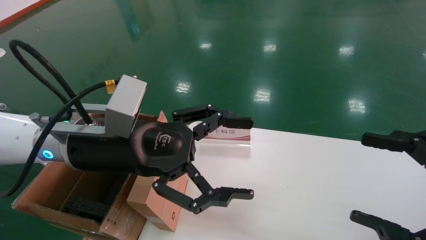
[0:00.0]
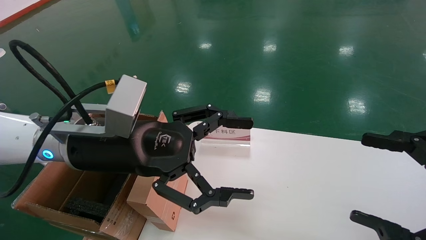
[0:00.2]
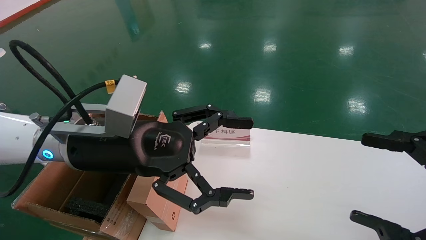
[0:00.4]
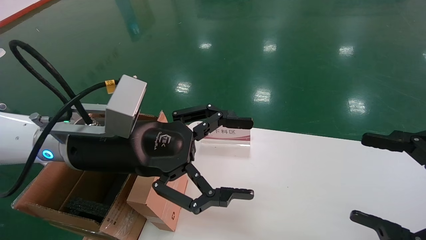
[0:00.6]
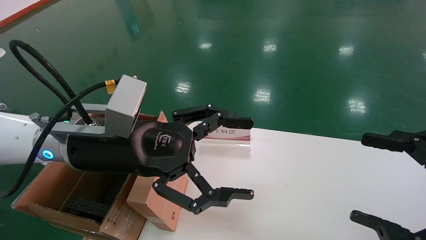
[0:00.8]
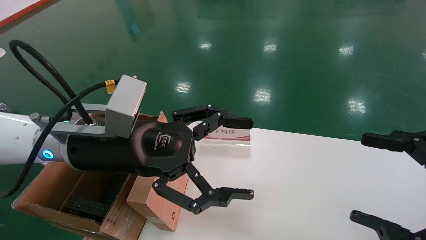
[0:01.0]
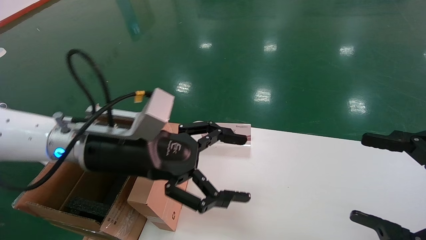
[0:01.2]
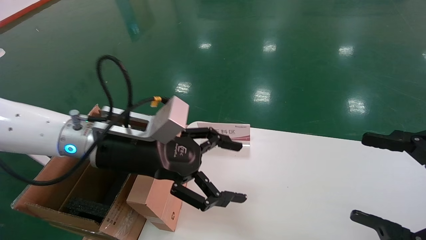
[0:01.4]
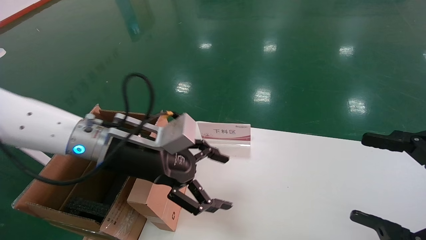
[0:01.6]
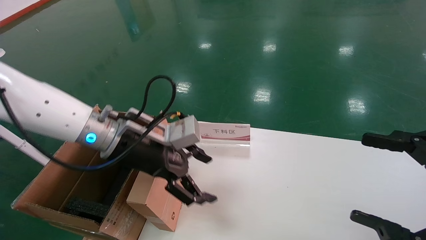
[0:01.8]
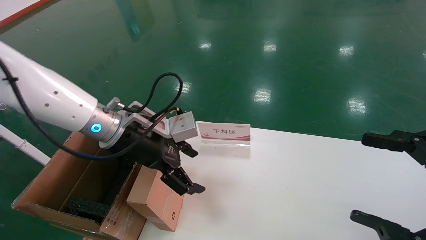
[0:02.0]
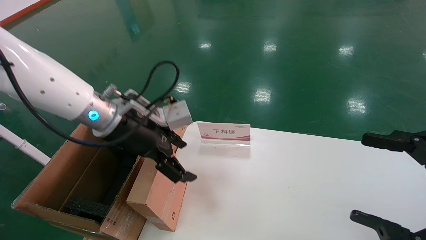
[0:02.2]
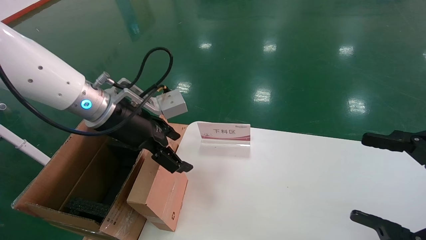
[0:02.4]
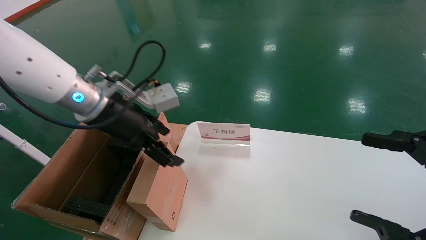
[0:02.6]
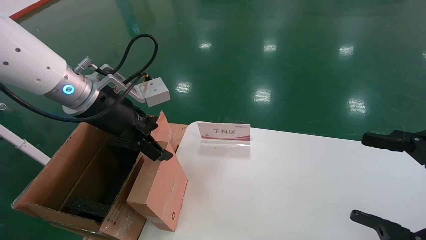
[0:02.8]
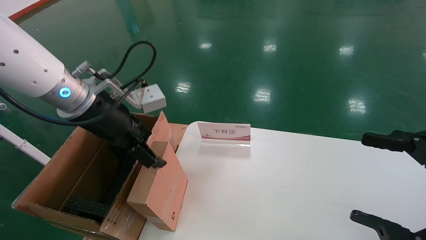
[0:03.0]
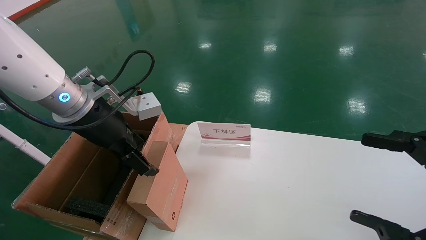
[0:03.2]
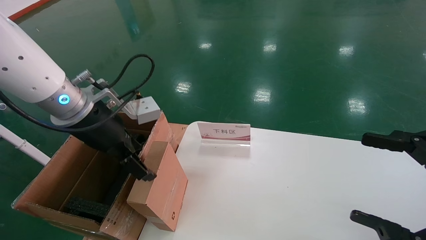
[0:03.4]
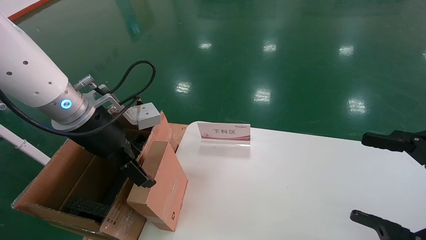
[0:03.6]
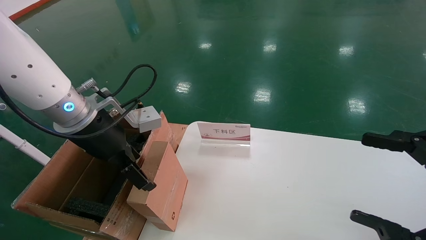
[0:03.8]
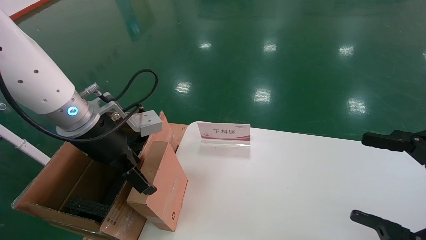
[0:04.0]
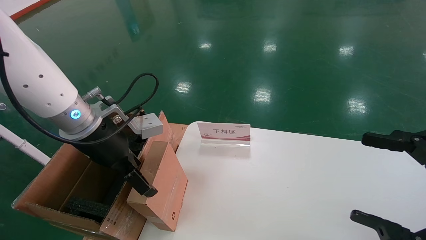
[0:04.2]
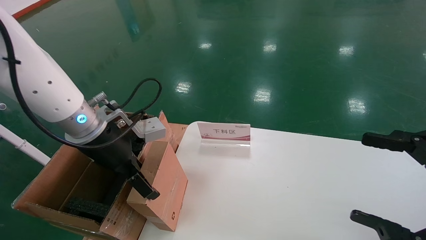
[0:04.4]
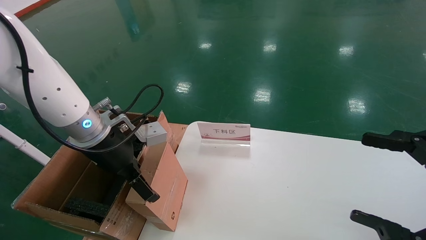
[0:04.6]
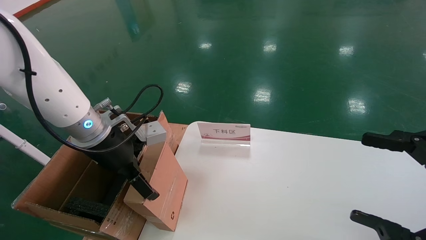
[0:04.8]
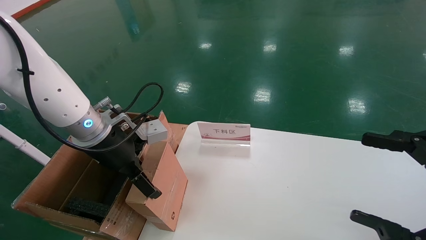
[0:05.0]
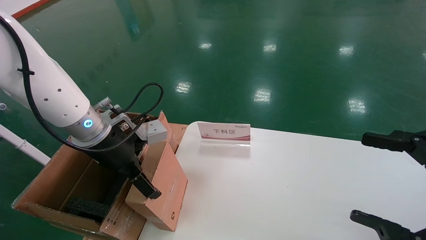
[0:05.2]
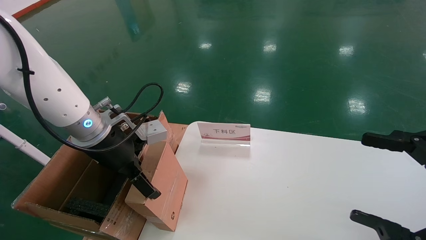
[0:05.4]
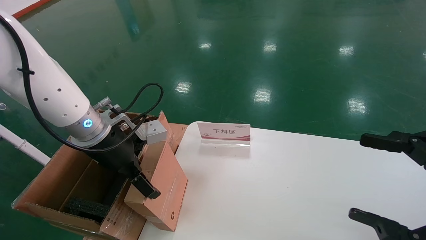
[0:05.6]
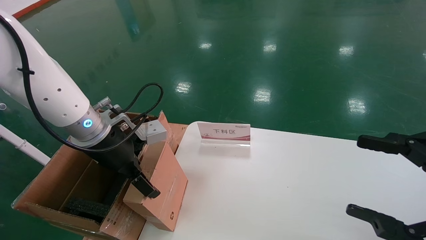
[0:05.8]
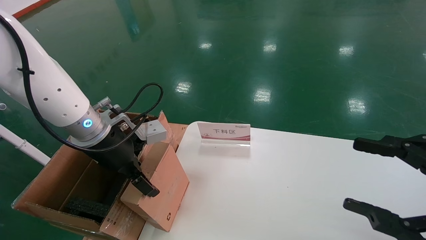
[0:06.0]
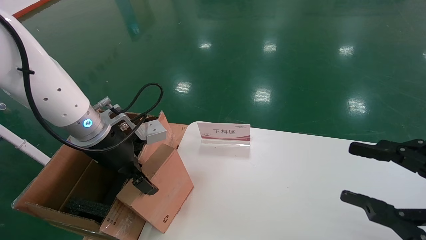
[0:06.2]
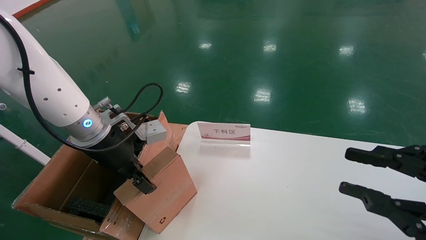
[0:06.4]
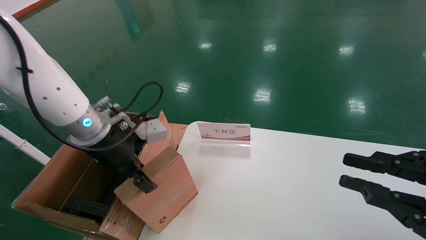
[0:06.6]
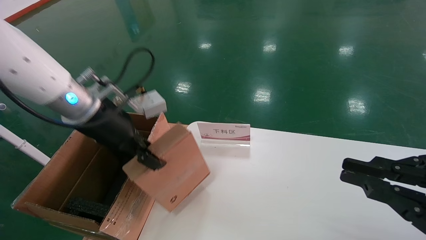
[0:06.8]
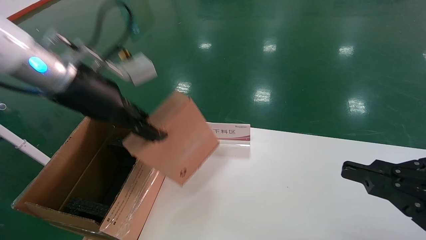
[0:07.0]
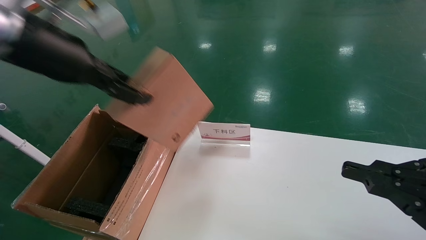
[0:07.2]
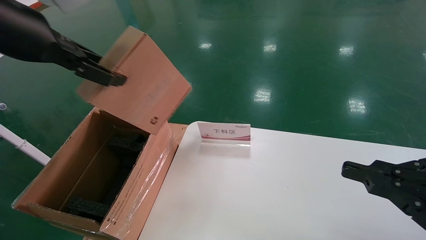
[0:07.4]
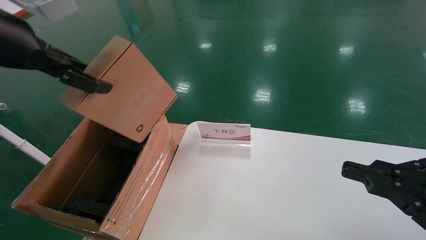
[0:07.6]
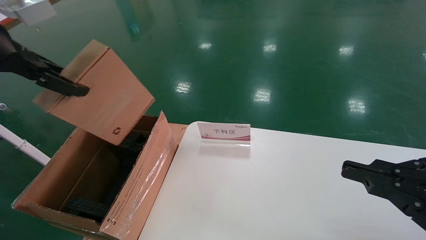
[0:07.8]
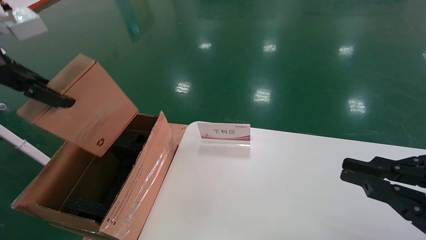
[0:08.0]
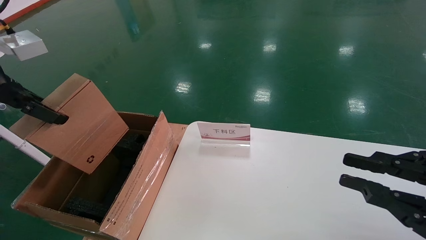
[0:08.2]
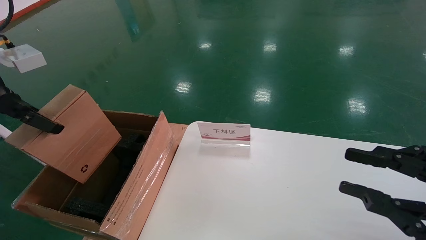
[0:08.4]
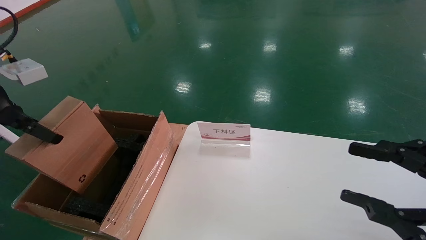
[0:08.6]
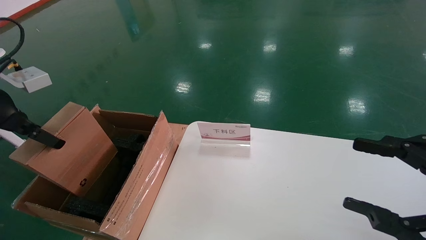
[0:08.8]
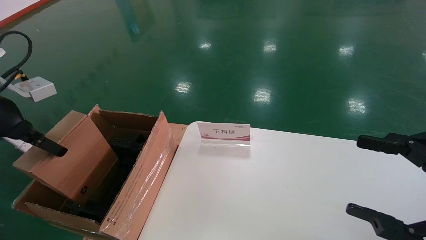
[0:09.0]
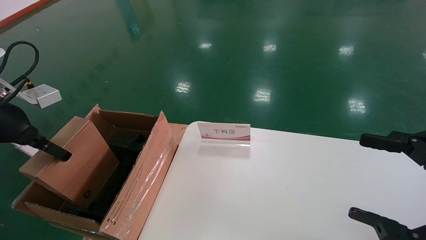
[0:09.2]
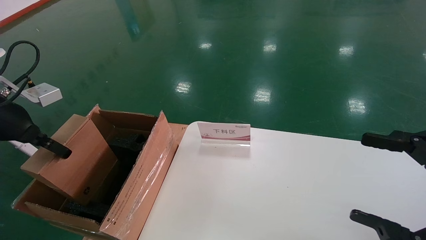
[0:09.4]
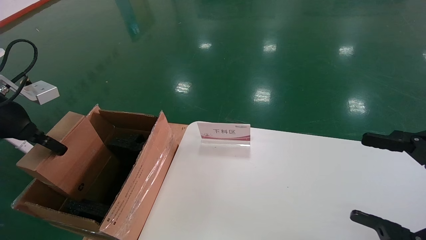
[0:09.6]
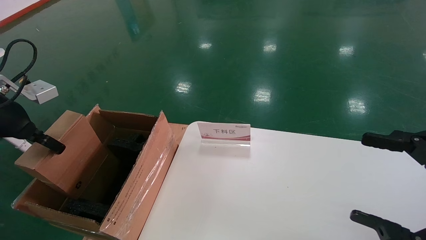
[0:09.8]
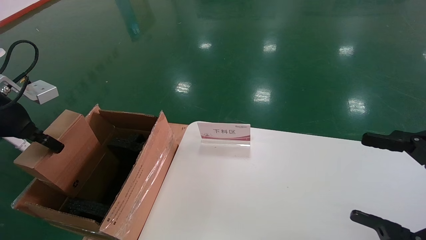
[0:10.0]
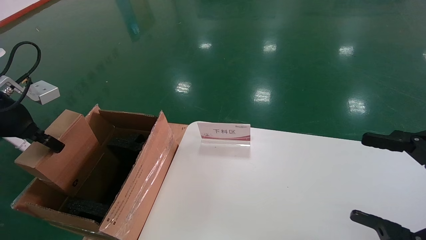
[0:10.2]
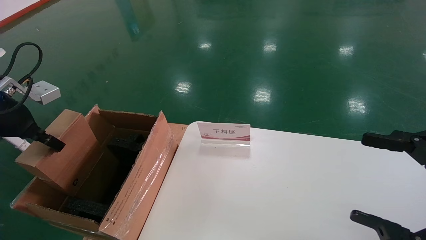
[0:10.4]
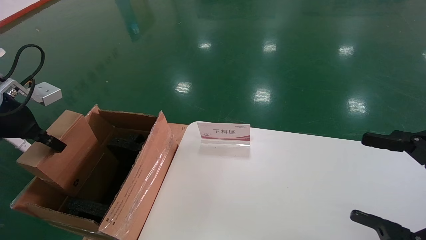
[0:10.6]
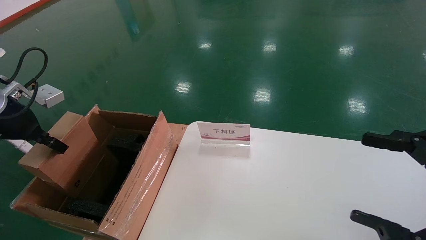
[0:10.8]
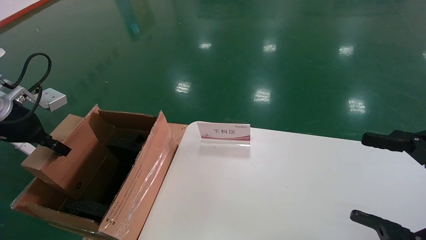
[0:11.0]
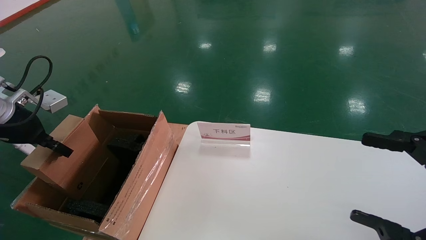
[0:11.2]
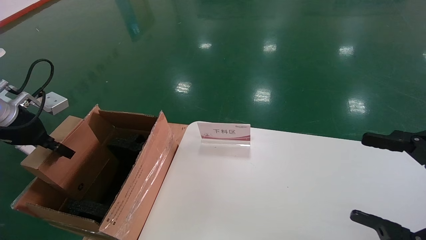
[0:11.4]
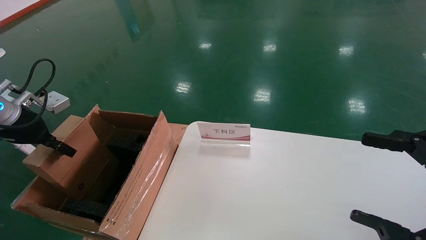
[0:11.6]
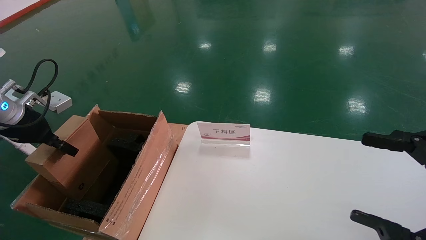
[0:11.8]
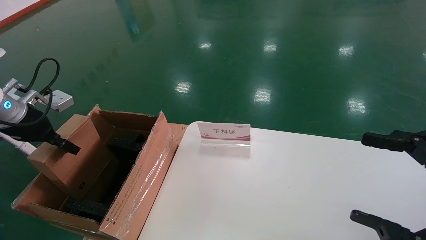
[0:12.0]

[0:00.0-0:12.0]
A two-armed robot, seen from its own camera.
Task of the whole recording: pick up the small cardboard box and load it into the large cardboard box.
Step, 0:01.2 to 0:06.6: Pick up the mouse and power cord box.
0:00.0 to 0:01.6: The left gripper heads forward, covering approximately 5 cm.
0:01.6 to 0:03.0: The left gripper goes about 5 cm upward.
0:03.0 to 0:06.0: There are only small adjustments of the grippers.
0:06.0 to 0:07.6: The left gripper goes approximately 25 cm upward, backward and to the left, and closes; the right gripper closes its fingers.
0:07.6 to 0:09.0: The left gripper shifts roughly 15 cm downward and to the left. The right gripper opens its fingers.
0:09.0 to 0:10.4: There are only small adjustments of the grippers.
0:10.4 to 0:12.0: The left gripper shifts by approximately 5 cm.

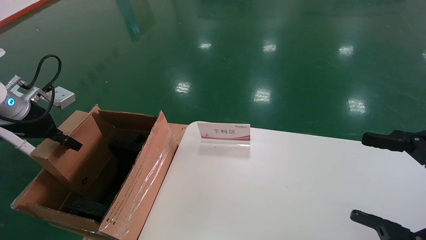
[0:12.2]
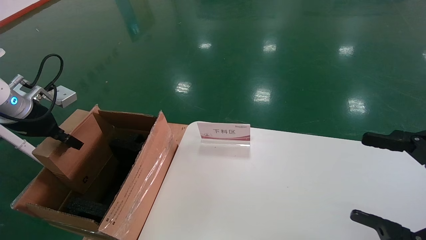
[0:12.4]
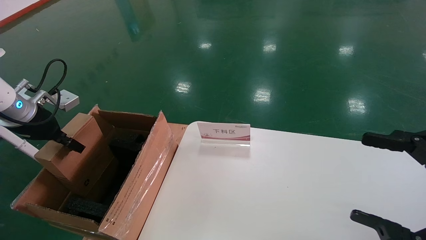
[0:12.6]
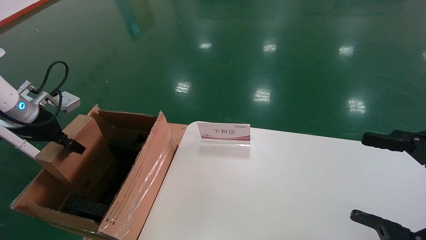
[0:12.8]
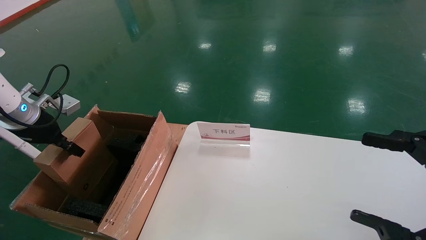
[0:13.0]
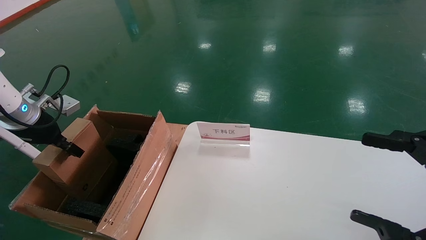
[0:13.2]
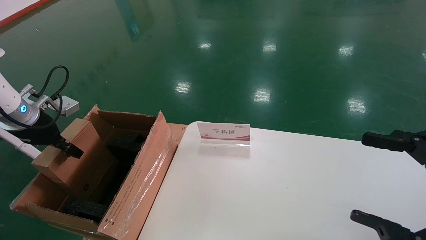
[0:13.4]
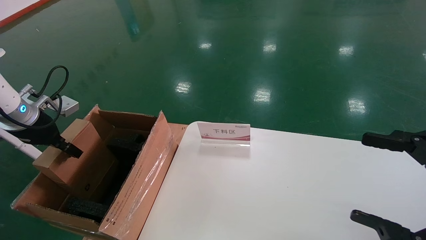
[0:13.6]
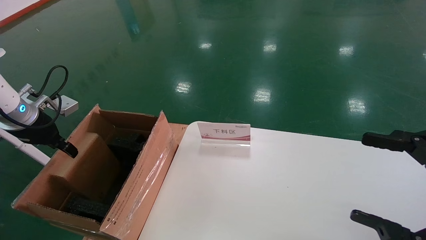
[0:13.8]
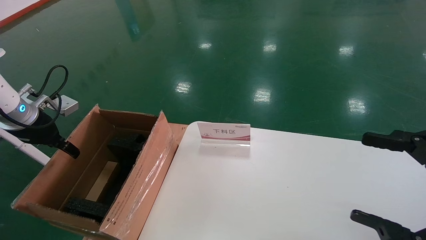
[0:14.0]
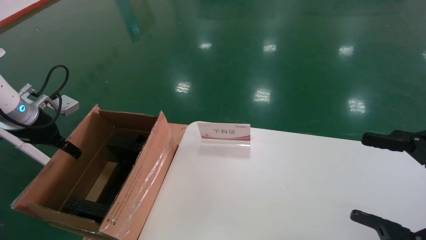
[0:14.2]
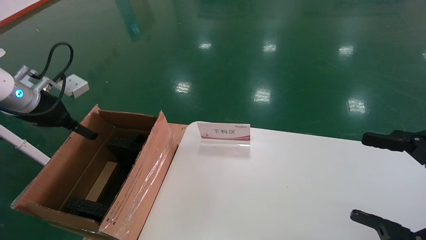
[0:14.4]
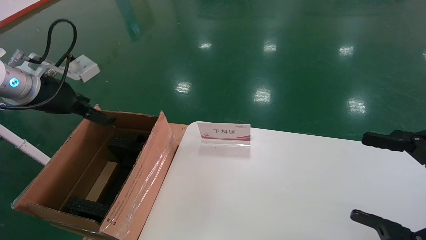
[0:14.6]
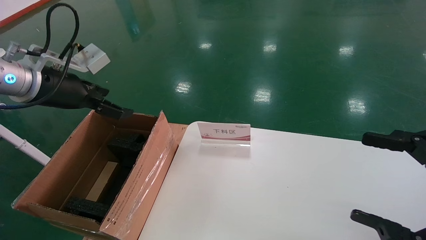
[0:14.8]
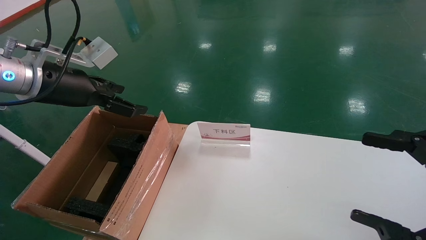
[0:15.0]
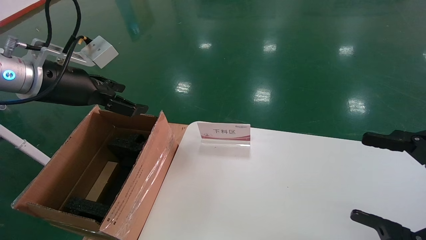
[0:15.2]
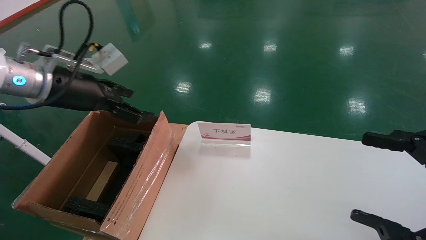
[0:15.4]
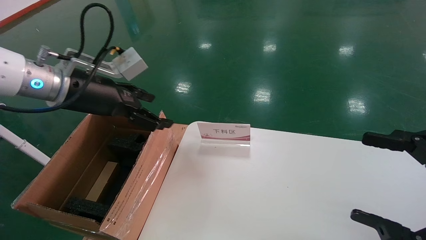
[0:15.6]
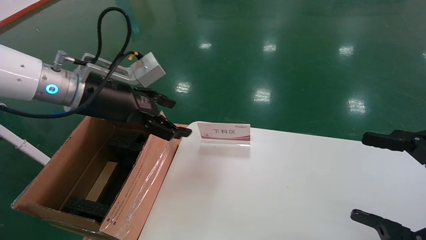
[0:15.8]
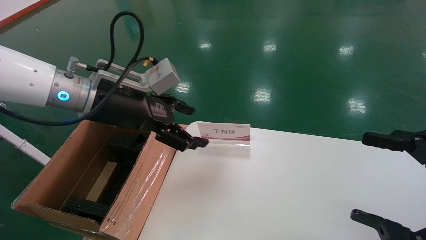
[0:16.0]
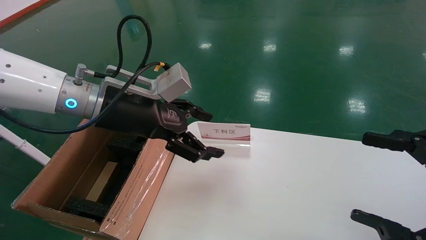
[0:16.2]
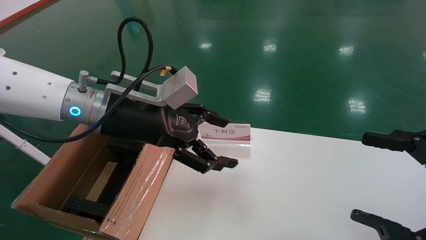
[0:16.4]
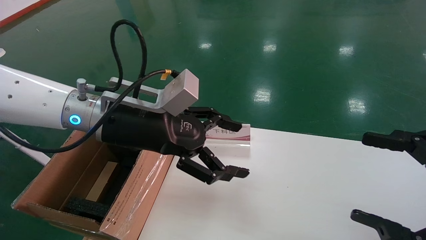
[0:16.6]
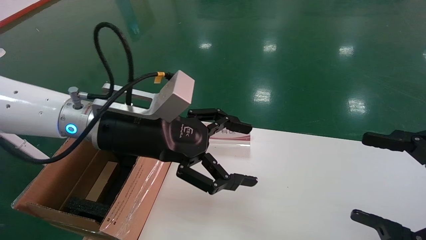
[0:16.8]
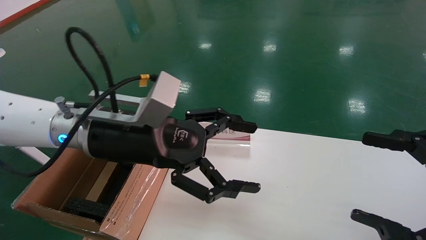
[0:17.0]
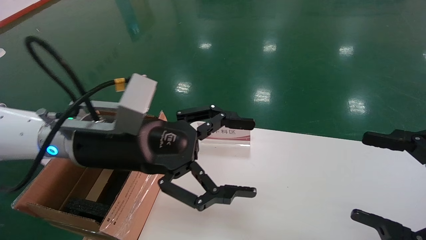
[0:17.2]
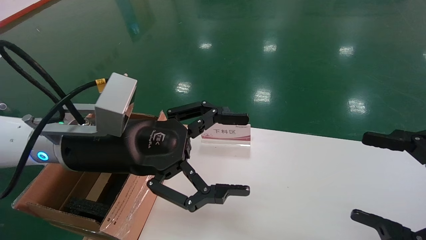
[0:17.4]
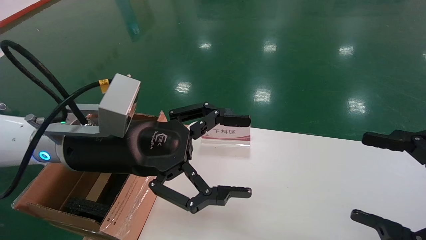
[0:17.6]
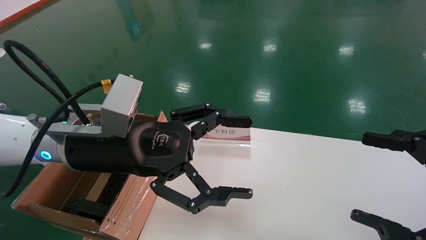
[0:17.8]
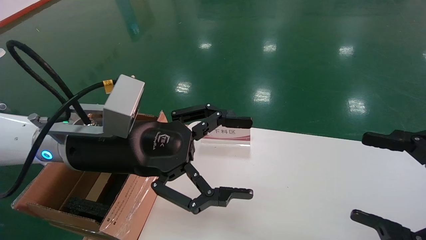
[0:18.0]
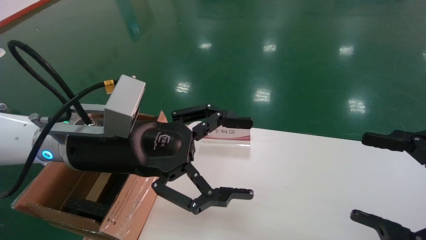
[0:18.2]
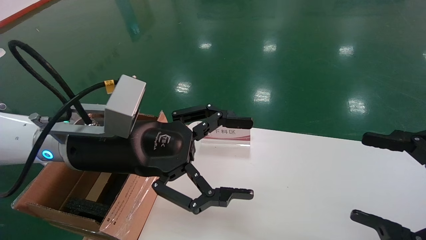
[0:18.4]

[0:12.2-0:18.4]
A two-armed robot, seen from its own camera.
Task of the whole recording: pick up the small cardboard box and load it into the large cardboard box.
Step, 0:12.2 to 0:14.2: Place the mouse and power cord box into the case.
0:12.2 to 0:13.8: There are only small adjustments of the grippers.
0:13.8 to 0:15.4: The left gripper moves to the right and upward, about 15 cm, and opens up.
0:15.4 to 0:16.8: The left gripper is displaced to the right and downward by some 15 cm.
0:16.8 to 0:18.4: The grippers stay close to where they were, moving slightly.
